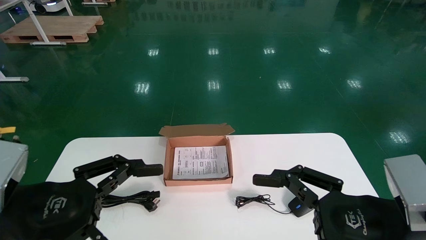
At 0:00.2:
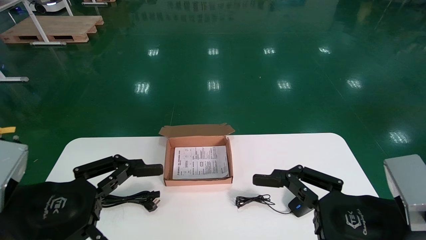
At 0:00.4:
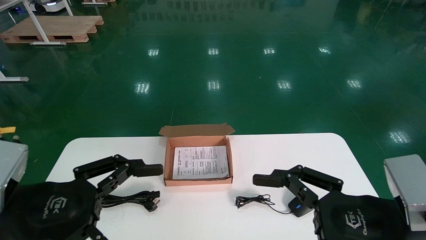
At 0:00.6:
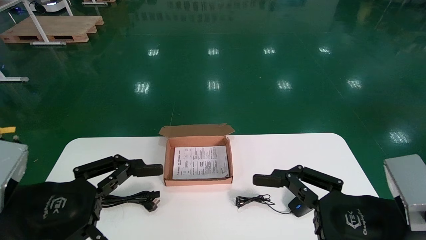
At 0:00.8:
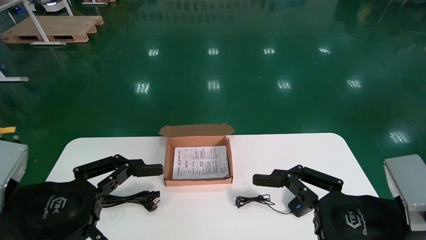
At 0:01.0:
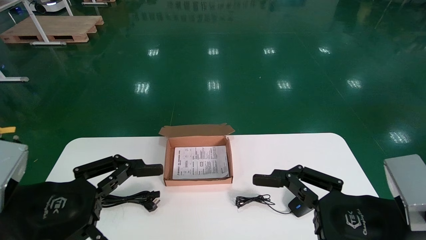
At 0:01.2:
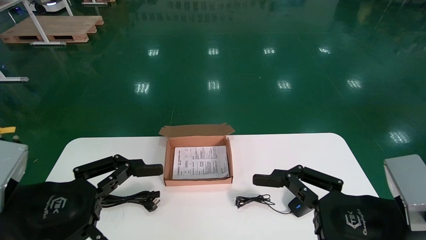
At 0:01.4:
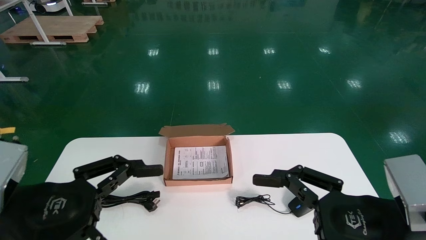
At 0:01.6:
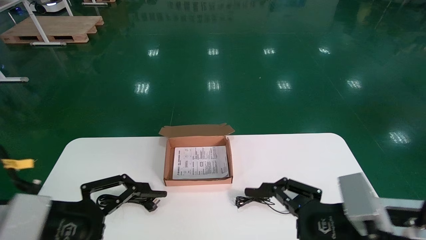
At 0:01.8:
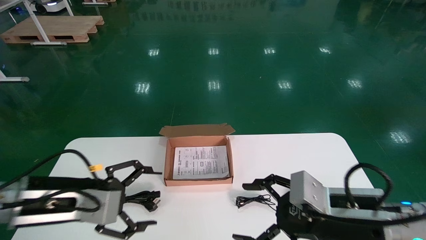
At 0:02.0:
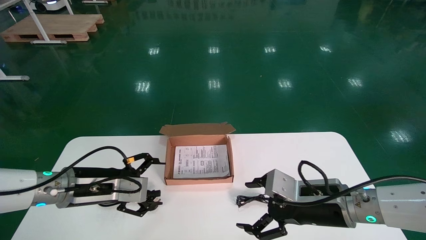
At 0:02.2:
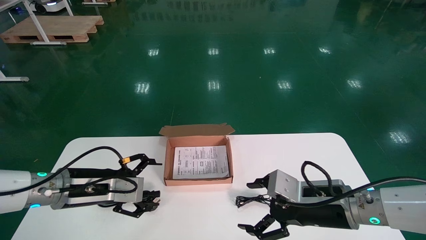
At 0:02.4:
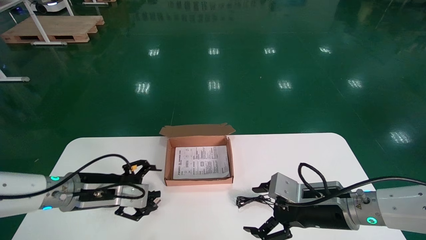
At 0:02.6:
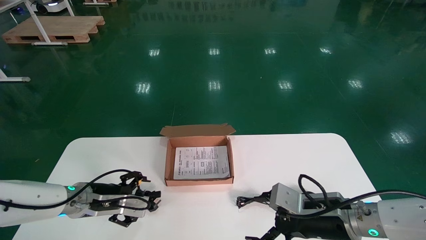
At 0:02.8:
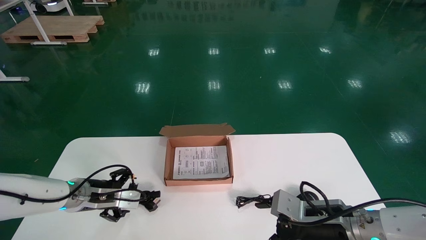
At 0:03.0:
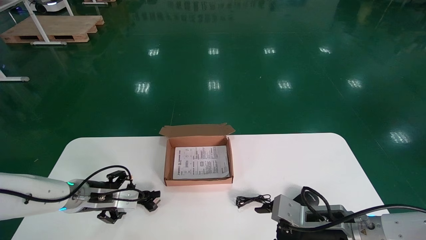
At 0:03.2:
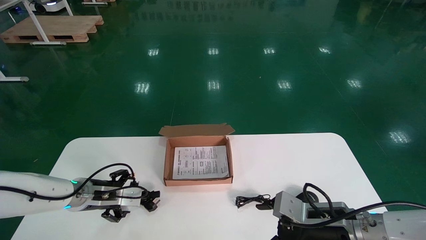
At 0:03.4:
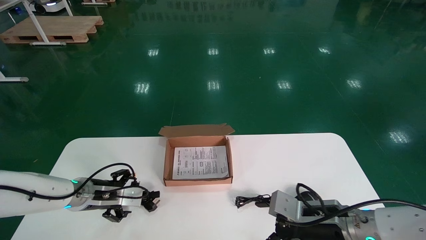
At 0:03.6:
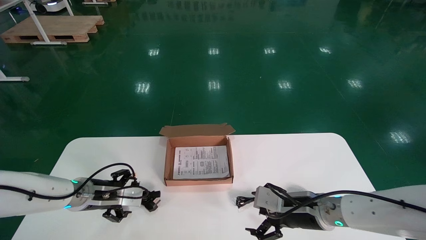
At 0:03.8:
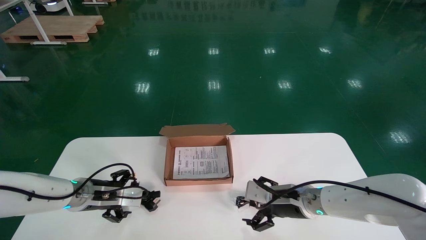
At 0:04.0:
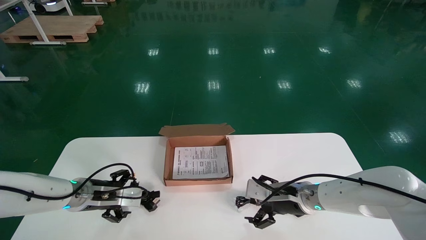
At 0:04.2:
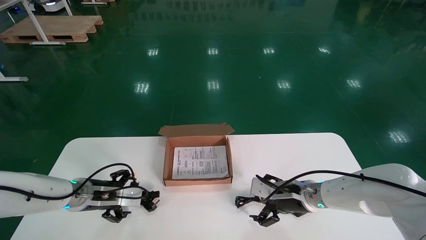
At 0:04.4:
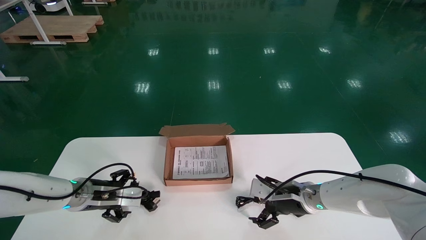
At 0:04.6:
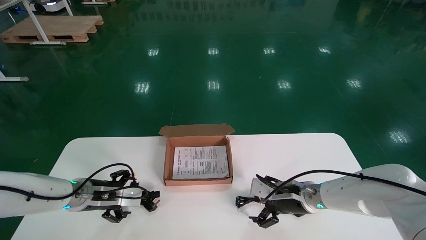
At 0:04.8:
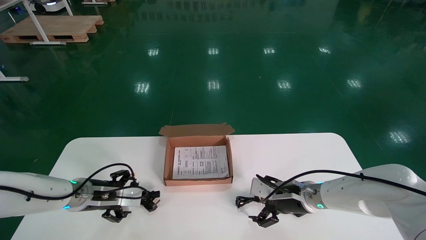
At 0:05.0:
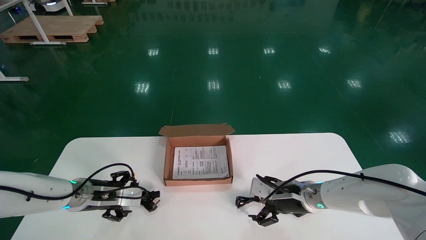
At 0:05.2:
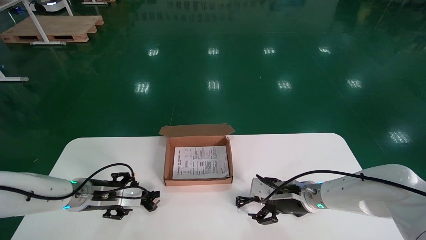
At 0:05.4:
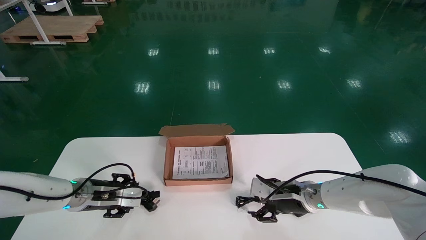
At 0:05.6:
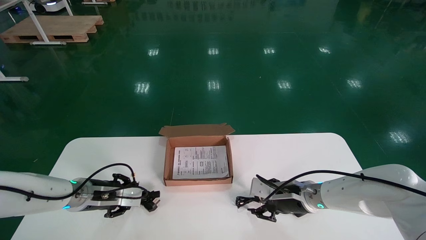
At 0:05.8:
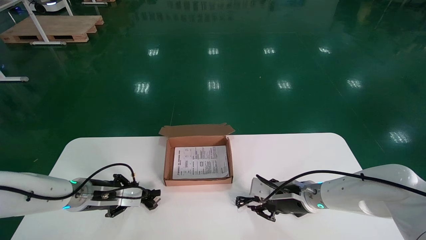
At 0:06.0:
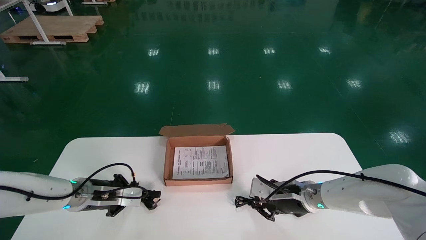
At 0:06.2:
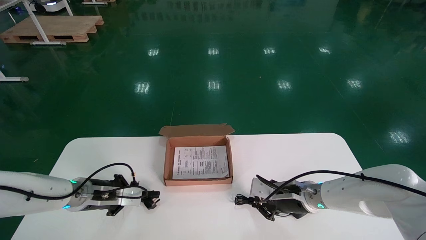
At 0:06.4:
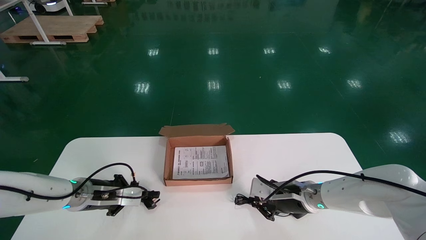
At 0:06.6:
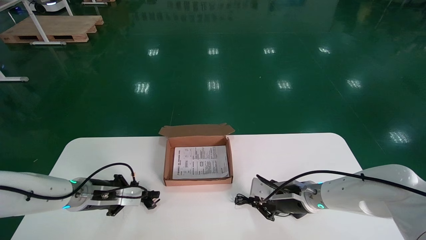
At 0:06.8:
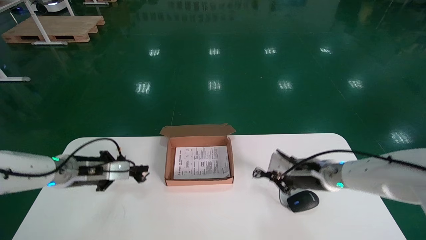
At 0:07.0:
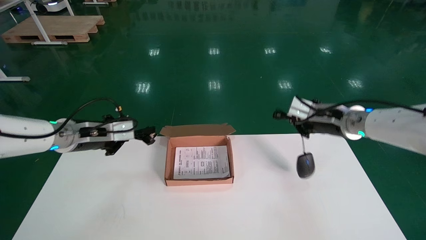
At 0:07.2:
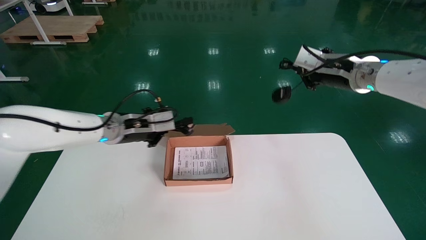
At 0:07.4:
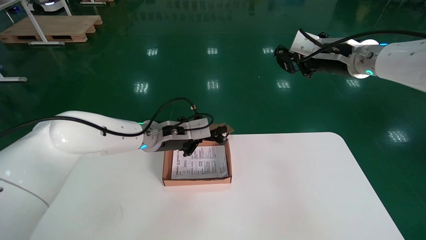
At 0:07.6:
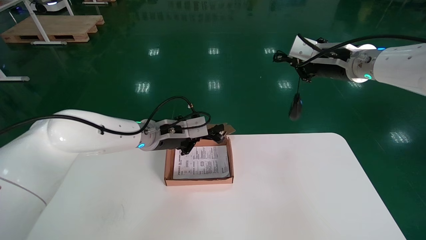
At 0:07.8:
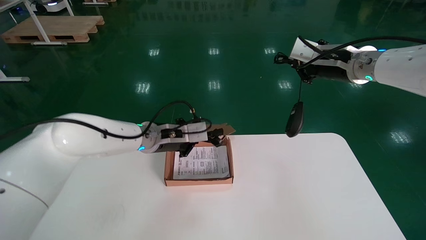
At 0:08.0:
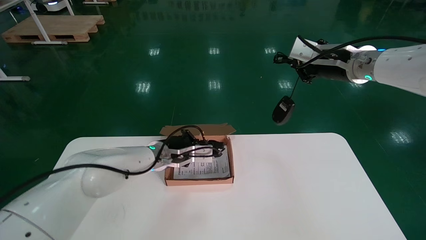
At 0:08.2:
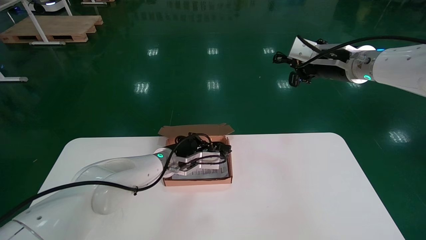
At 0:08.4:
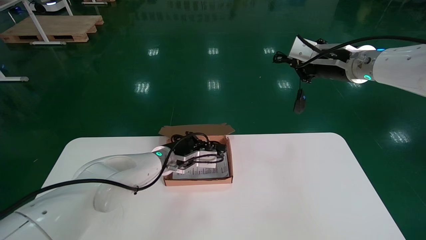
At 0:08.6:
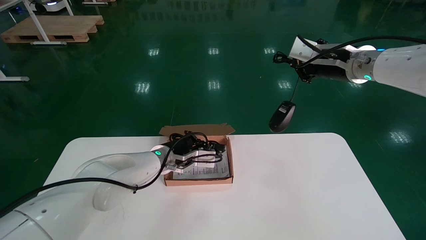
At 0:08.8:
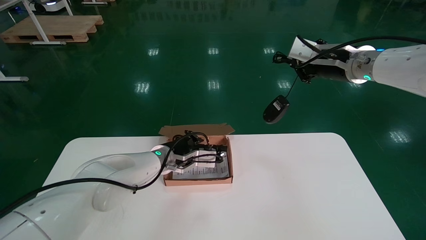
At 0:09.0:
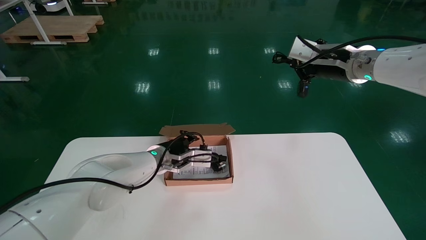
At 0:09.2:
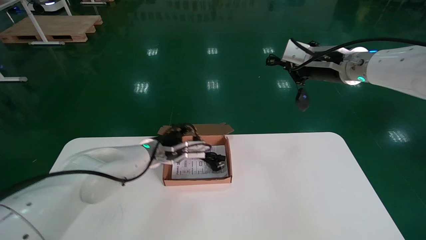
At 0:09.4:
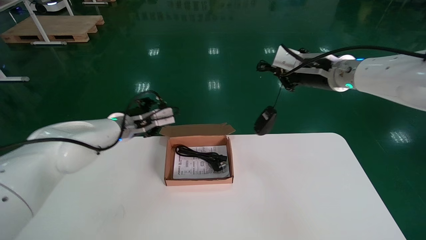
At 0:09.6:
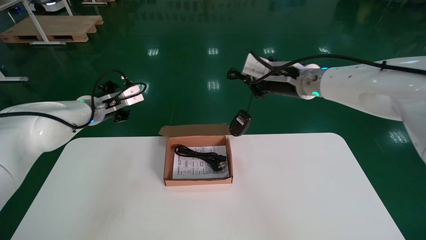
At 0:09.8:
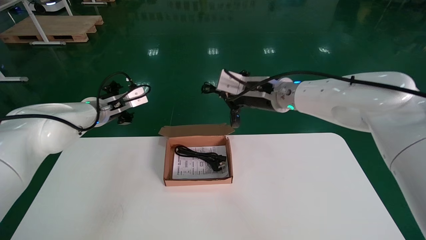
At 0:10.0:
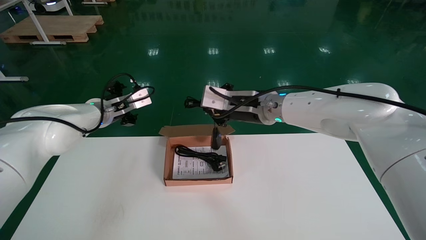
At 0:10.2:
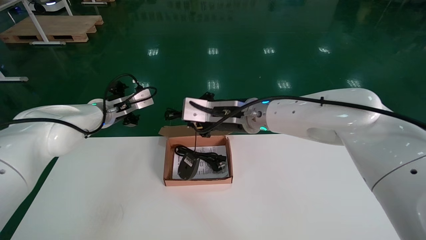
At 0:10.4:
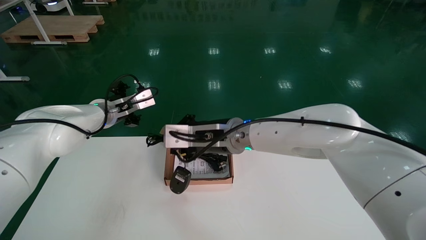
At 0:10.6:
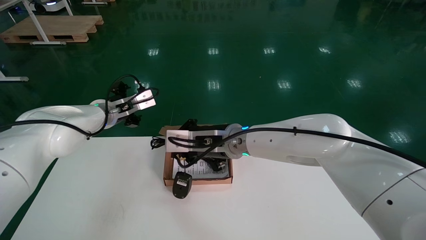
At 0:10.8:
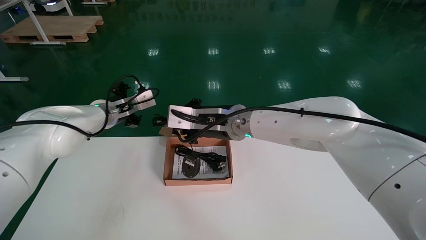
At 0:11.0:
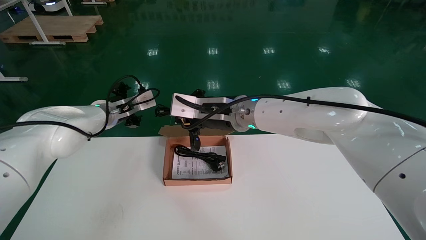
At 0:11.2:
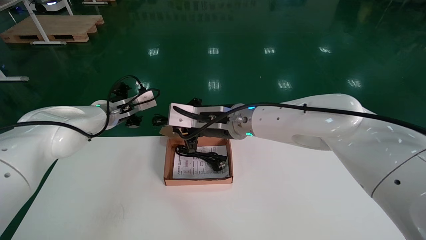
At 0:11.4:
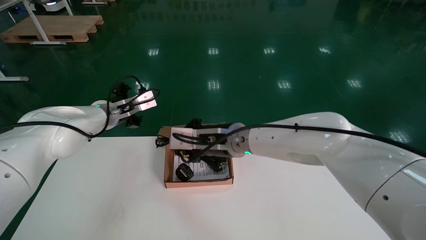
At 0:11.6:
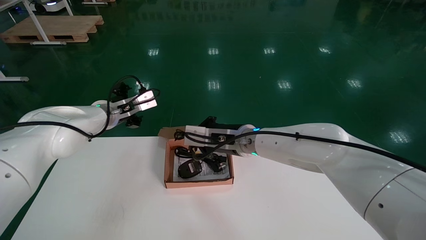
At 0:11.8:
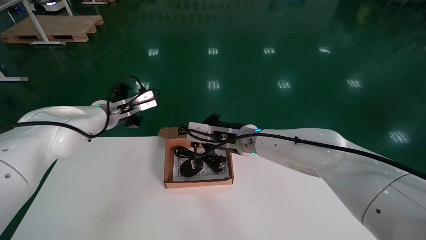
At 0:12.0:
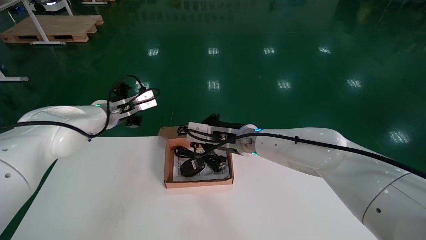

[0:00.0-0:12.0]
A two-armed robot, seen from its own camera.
Step, 0:01.6 to 0:07.0: Simultaneously pick up the mouse and power cord from the accessory packaging area.
0:00.0 to 0:01.6: Both grippers travel together forward, roughly 5 cm.
0:01.6 to 0:03.0: The left gripper moves forward and downward, roughly 20 cm; the right gripper heads forward and downward, covering some 10 cm.
0:03.0 to 0:04.4: The right gripper travels forward by some 10 cm.
0:04.4 to 0:06.0: The left gripper closes up. The right gripper closes.
0:06.0 to 0:07.6: The left gripper heads to the right and upward, covering approximately 20 cm. Meanwhile the right gripper moves upward, approximately 30 cm.
0:07.6 to 0:09.0: The left gripper travels downward by about 5 cm.
0:09.0 to 0:10.4: The right gripper heads to the left and downward, covering some 25 cm. Meanwhile the left gripper heads to the left and upward, covering some 15 cm, and opens its fingers.
0:10.4 to 0:12.0: The right gripper moves about 5 cm.

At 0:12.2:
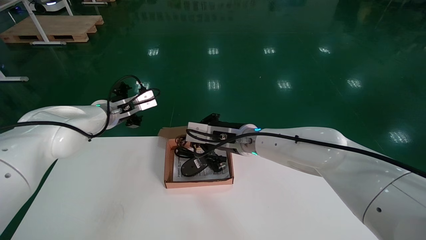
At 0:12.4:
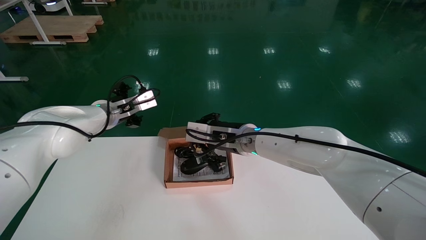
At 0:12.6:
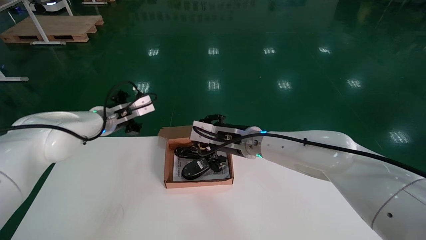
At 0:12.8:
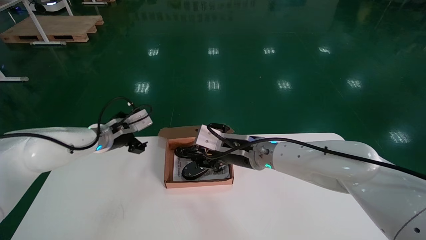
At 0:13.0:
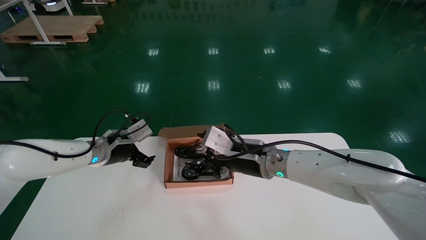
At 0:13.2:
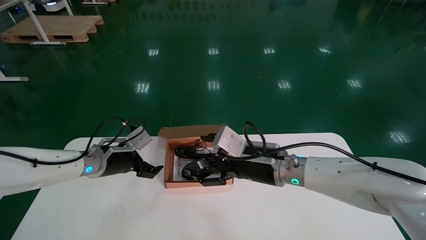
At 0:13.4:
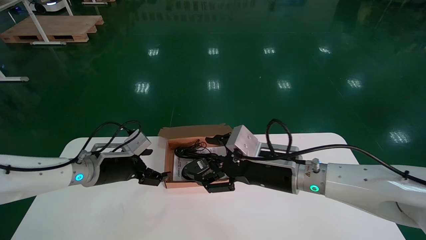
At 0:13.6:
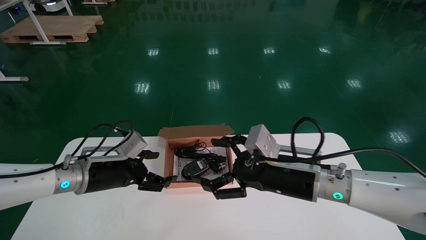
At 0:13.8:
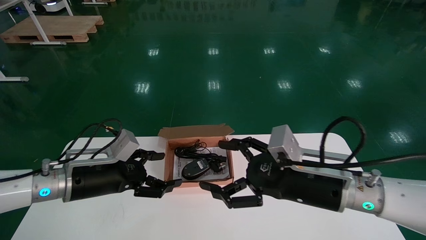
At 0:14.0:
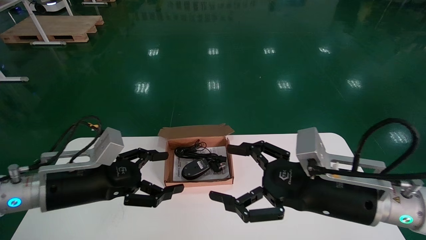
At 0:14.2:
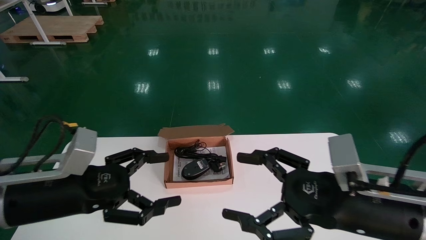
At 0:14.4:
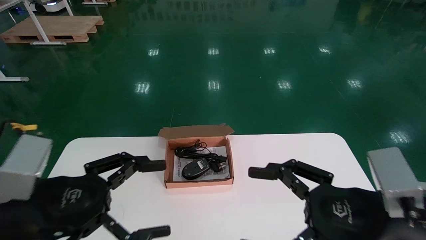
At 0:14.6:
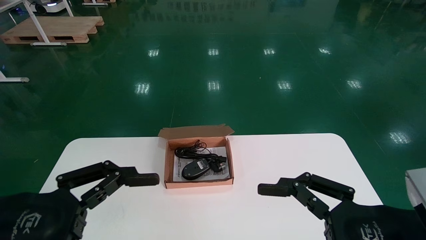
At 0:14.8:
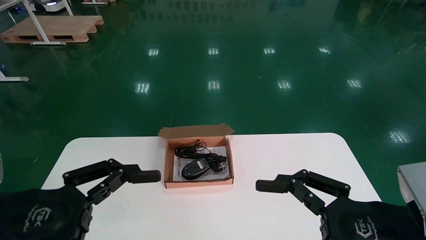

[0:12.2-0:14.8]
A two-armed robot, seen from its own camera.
0:12.2 to 0:13.4: The left gripper heads downward and backward, covering about 15 cm. Meanwhile the right gripper is displaced backward and to the right by about 15 cm, and opens up.
0:13.4 to 0:14.8: The left gripper moves backward, about 25 cm; the right gripper goes about 25 cm backward and to the right.

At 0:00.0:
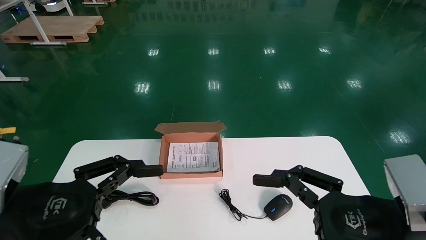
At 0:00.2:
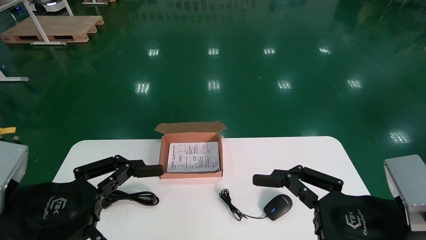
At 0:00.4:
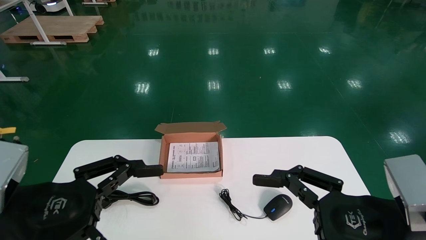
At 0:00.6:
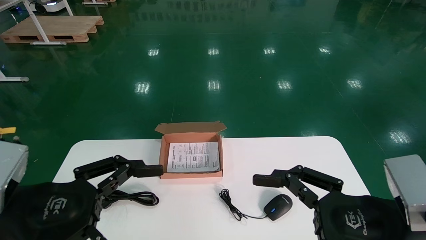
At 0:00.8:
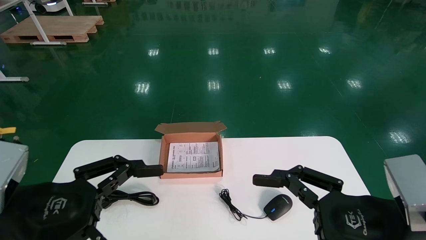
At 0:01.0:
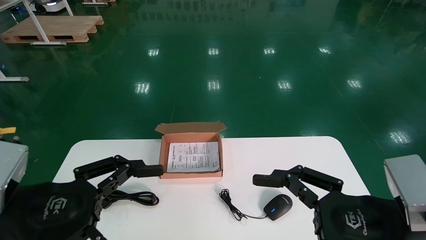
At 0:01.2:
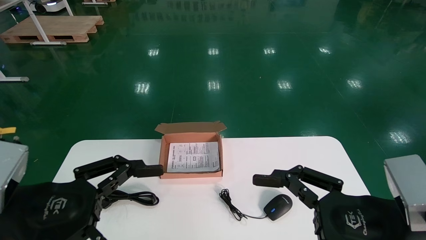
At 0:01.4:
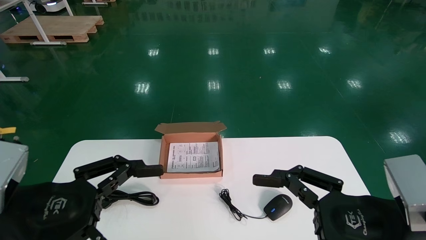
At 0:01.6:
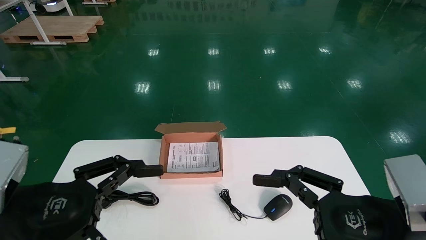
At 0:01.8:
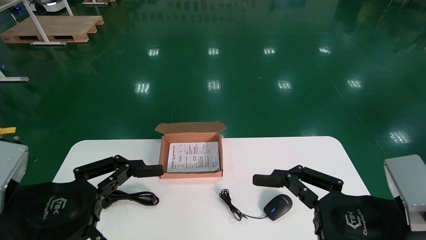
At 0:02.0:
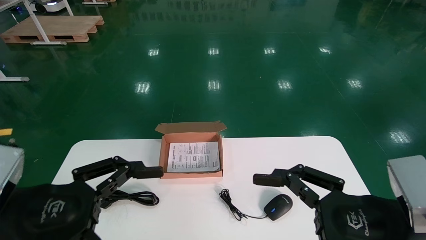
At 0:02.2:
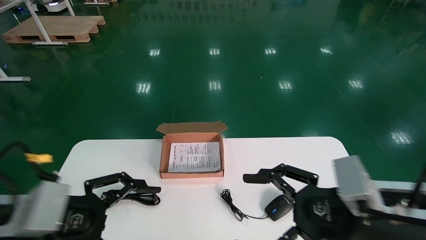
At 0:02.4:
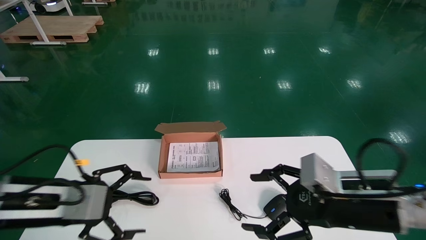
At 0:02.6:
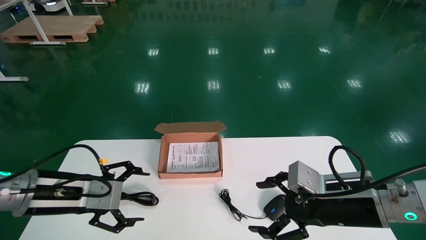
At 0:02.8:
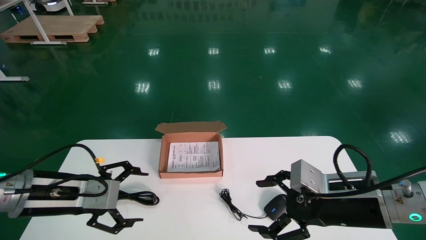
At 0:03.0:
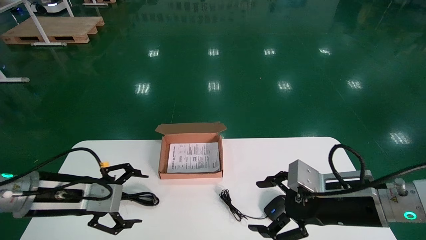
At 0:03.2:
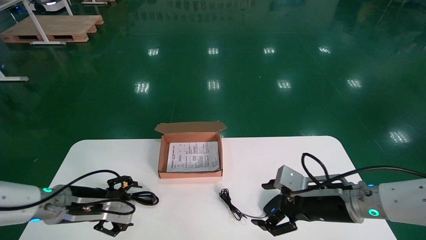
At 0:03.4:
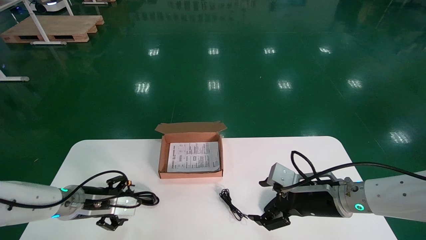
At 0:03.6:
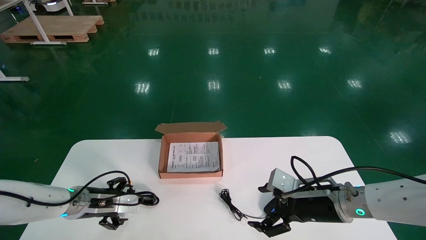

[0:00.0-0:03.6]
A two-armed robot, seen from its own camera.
0:00.0 to 0:01.8: Both grippers stay put.
0:01.8 to 0:03.6: Both grippers travel together forward and downward, approximately 25 cm.
